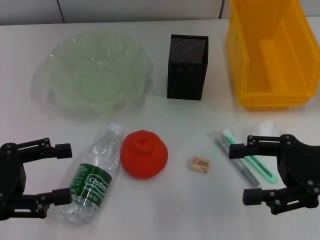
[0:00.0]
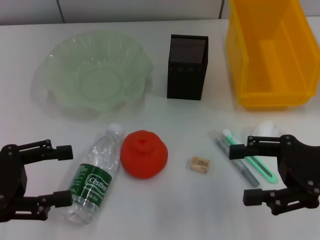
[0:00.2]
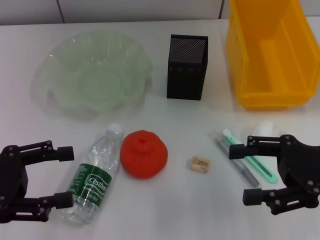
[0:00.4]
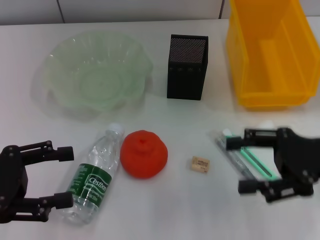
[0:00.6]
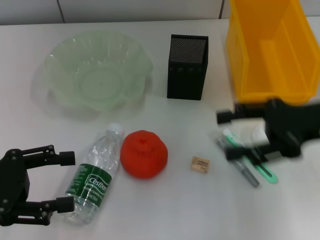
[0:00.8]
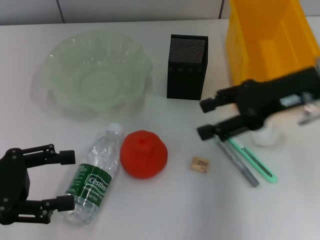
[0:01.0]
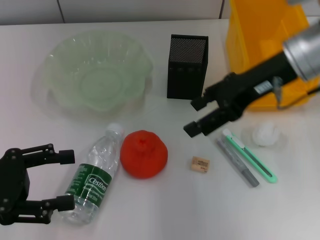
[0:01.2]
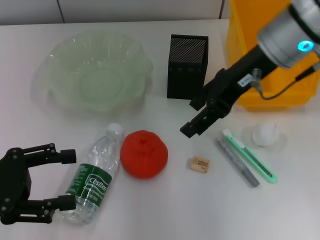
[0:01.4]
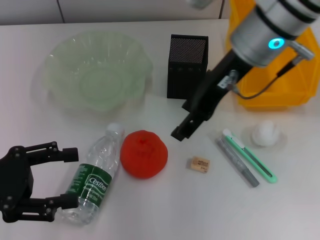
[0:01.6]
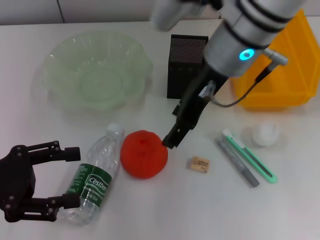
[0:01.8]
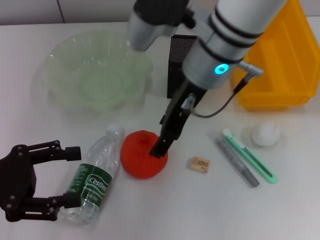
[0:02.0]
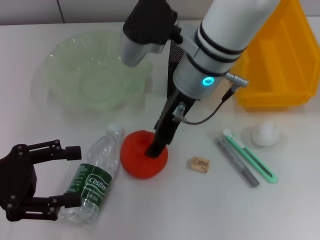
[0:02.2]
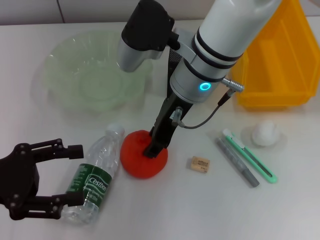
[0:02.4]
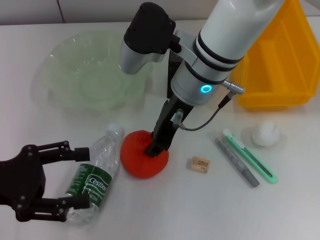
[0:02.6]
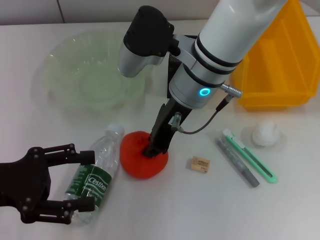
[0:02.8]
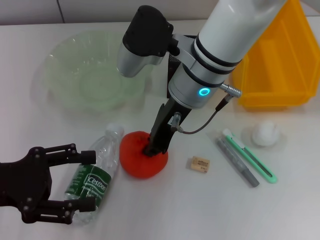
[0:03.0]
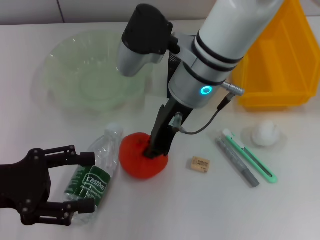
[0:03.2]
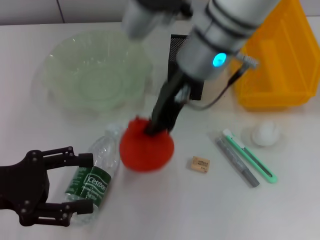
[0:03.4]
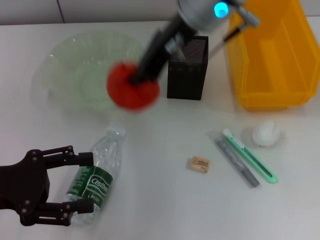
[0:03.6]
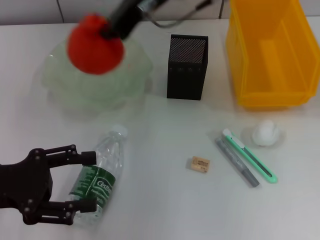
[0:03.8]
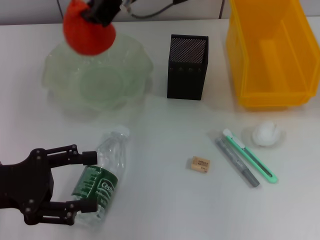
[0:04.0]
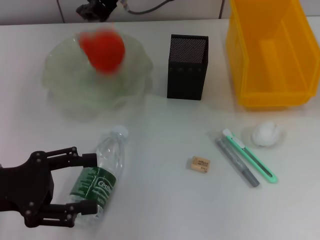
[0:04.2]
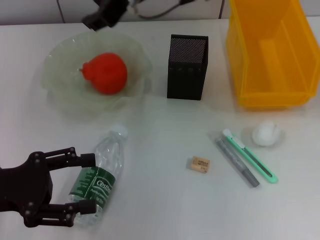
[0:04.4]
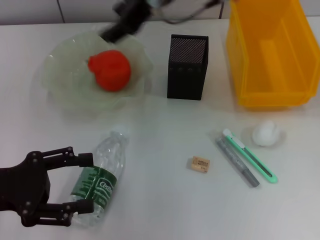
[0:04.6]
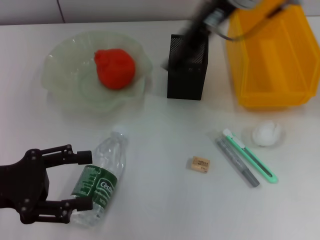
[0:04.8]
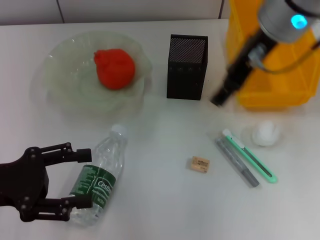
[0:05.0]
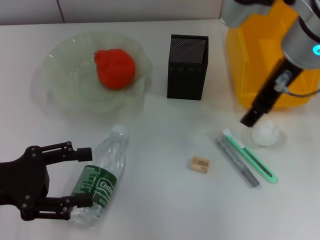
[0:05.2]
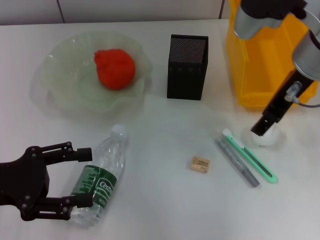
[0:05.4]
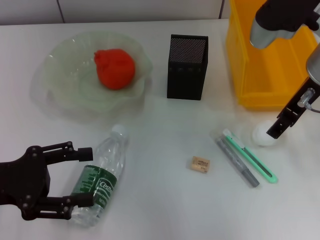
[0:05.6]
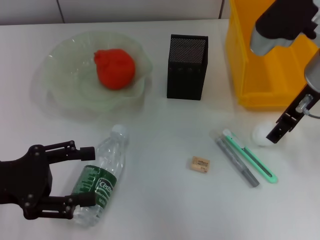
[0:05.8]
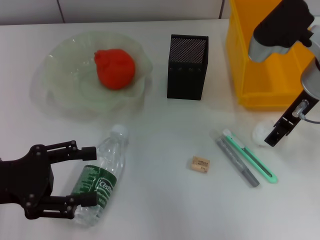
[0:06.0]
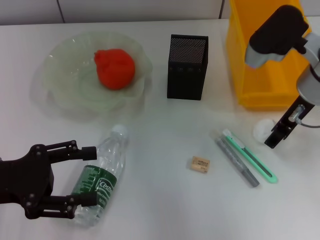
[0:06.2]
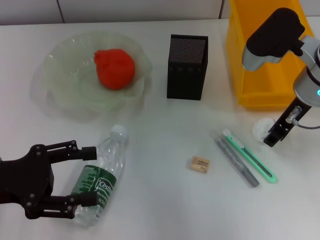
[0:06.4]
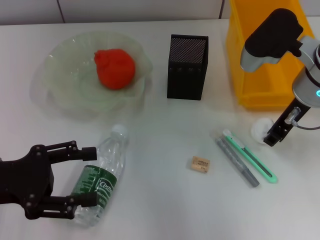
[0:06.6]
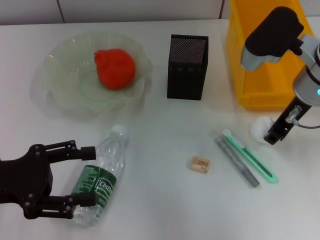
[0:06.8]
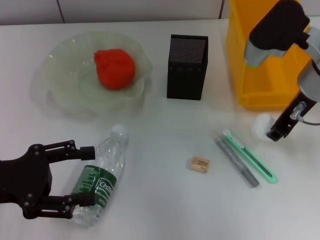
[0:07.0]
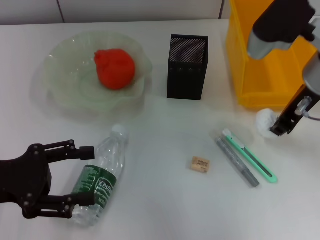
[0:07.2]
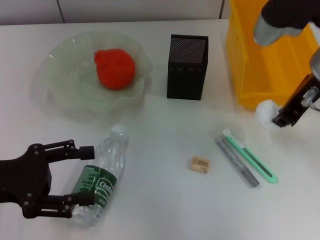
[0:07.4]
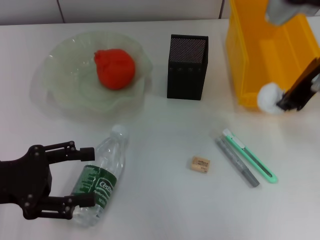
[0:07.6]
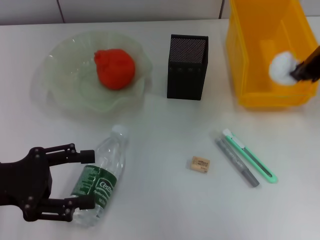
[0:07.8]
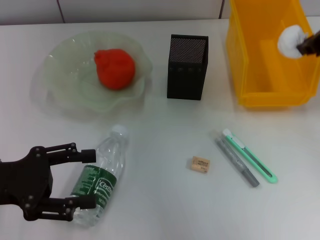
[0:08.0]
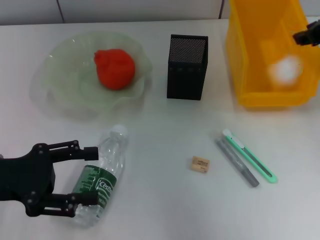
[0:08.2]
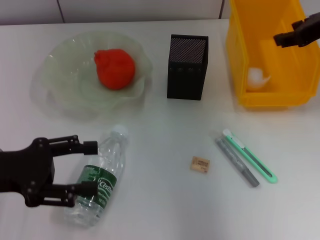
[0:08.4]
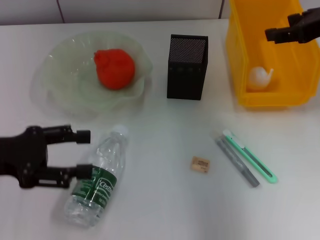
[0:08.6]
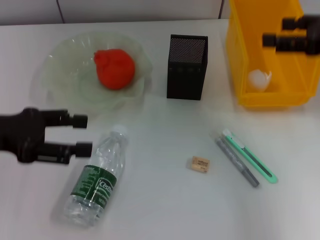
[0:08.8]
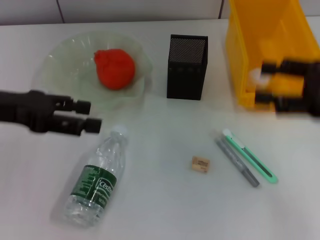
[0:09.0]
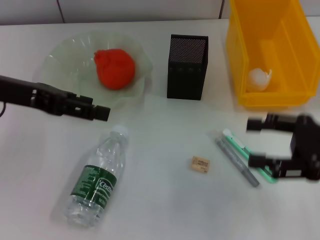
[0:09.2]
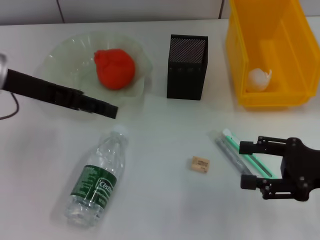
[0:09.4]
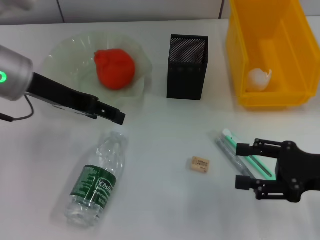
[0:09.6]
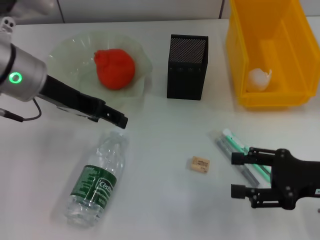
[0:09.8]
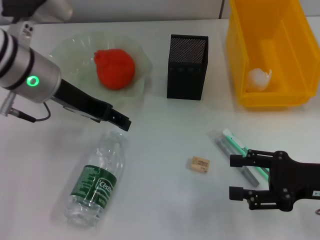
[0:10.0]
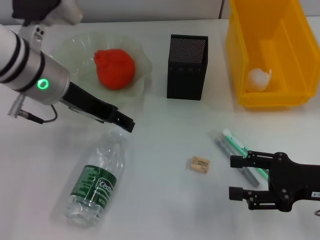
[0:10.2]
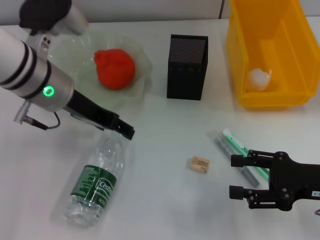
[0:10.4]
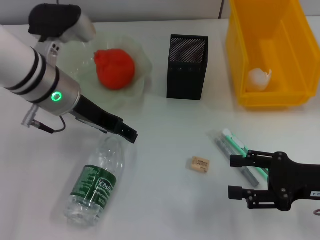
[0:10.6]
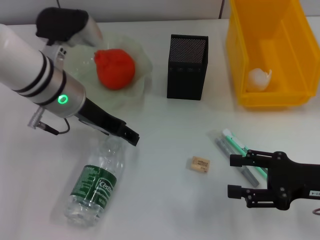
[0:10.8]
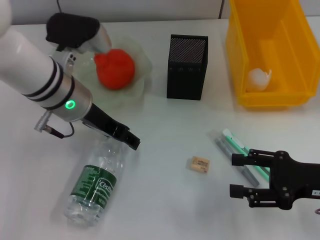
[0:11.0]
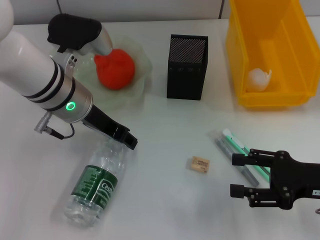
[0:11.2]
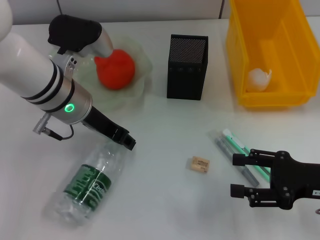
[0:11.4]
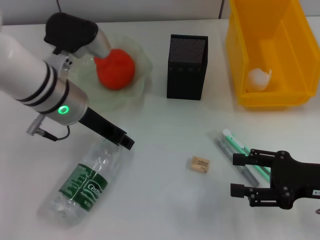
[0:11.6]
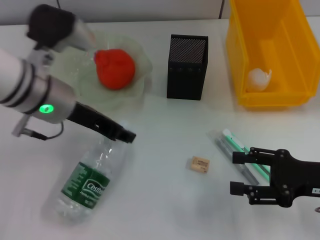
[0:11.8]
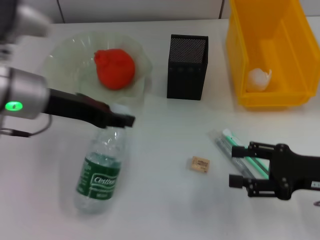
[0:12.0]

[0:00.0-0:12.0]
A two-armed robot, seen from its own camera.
Step, 0:00.0 to 0:02.8: Grab the orange with the right hand.
Step, 0:03.2 to 0:04.2: Place the orange into the fruit bowl with the right hand.
Step, 0:04.4 to 0:06.8: Grab the paper ball with the right hand.
Step, 0:07.0 to 0:08.2: Place the paper ball into the trash can with the right hand.
Step, 0:08.6 to 0:11.4: Grab the water bottle with the left hand.
0:00.0 to 0:01.6: The right gripper heads to the left, forward and upward, covering about 25 cm.
0:01.6 to 0:03.0: The right gripper goes approximately 10 cm to the left and downward, and closes up.
0:03.0 to 0:04.4: The right gripper heads upward and forward, covering about 10 cm.
0:04.4 to 0:06.0: The right gripper travels to the right and downward by roughly 20 cm, and opens.
0:06.0 to 0:07.6: The right gripper goes some 5 cm upward, and closes up.
0:07.6 to 0:09.0: The left gripper moves upward and forward, roughly 10 cm, while the right gripper moves to the right, downward and backward, roughly 15 cm, and opens up.
0:09.0 to 0:10.4: The left gripper goes approximately 15 cm to the right and forward. The right gripper travels downward and backward by about 15 cm.
0:10.4 to 0:12.0: The left gripper closes.

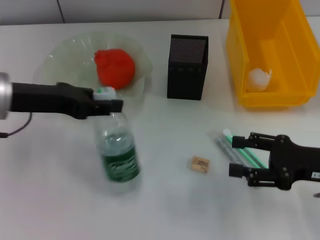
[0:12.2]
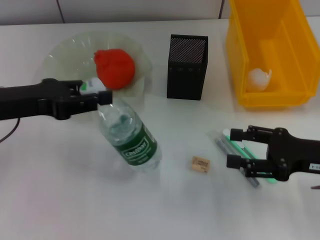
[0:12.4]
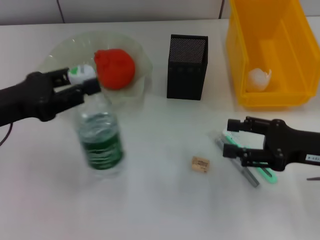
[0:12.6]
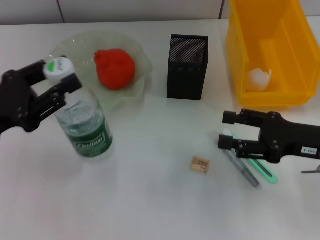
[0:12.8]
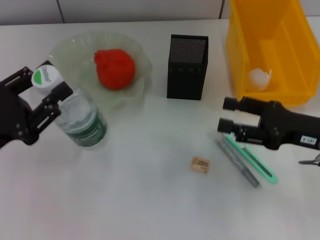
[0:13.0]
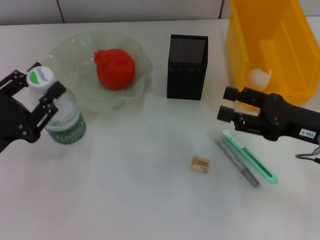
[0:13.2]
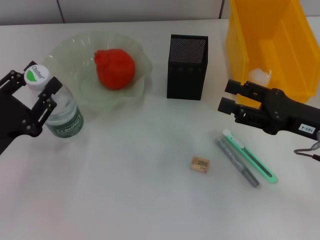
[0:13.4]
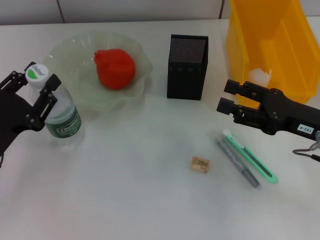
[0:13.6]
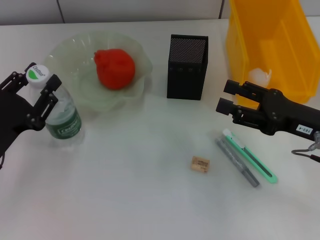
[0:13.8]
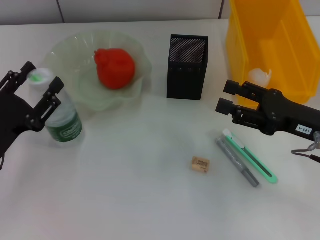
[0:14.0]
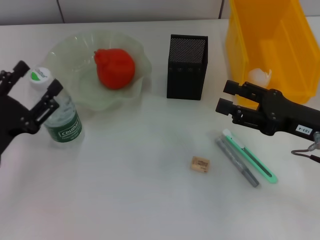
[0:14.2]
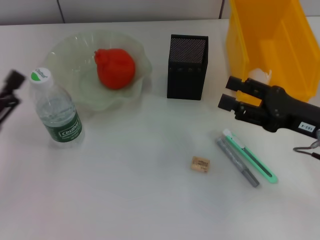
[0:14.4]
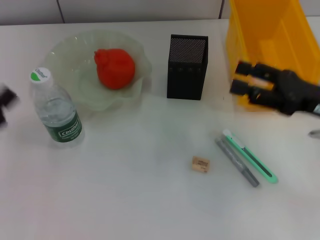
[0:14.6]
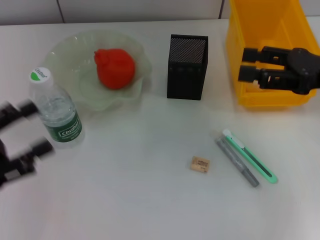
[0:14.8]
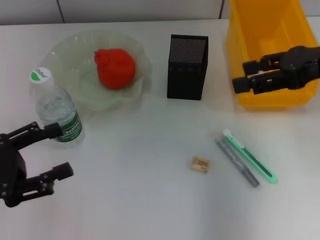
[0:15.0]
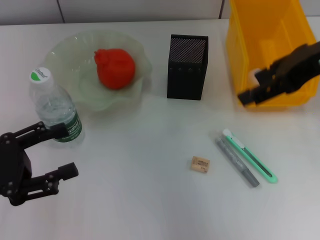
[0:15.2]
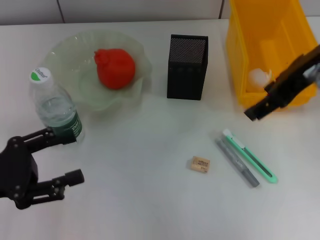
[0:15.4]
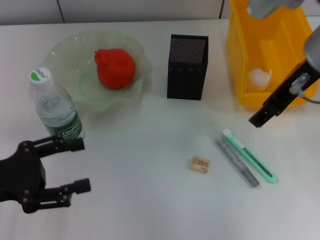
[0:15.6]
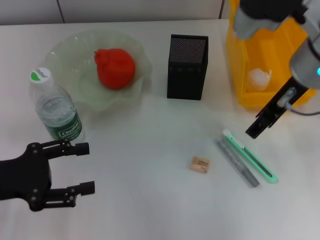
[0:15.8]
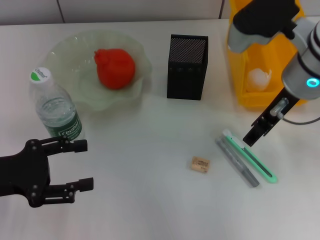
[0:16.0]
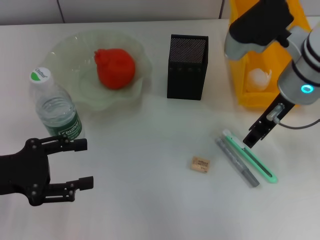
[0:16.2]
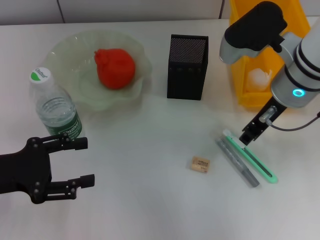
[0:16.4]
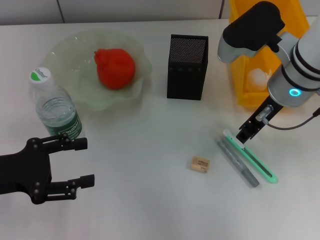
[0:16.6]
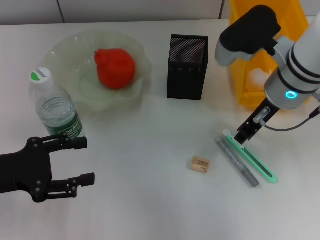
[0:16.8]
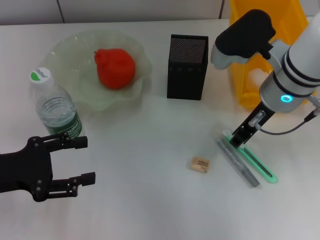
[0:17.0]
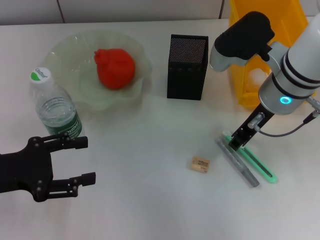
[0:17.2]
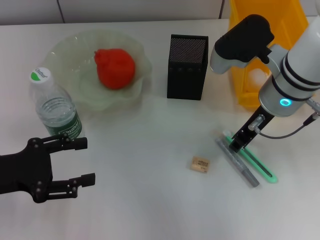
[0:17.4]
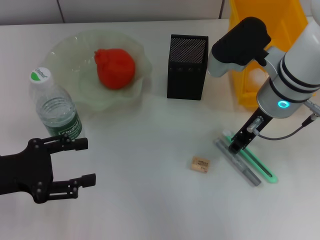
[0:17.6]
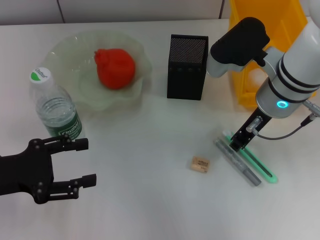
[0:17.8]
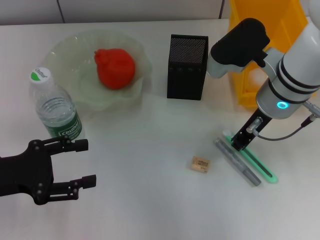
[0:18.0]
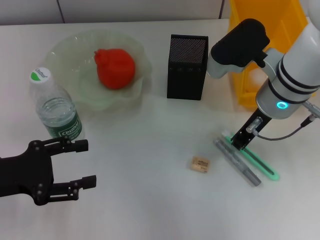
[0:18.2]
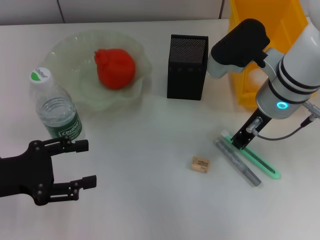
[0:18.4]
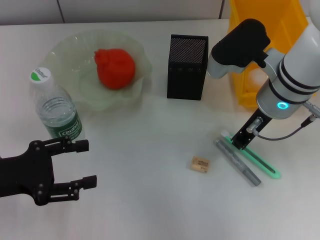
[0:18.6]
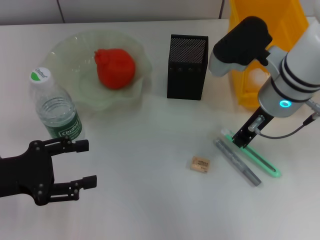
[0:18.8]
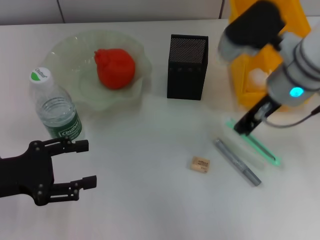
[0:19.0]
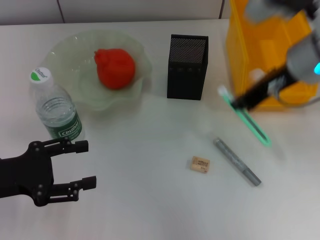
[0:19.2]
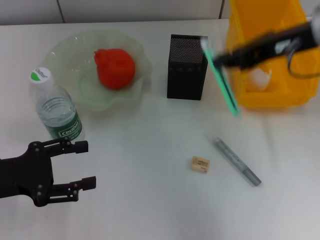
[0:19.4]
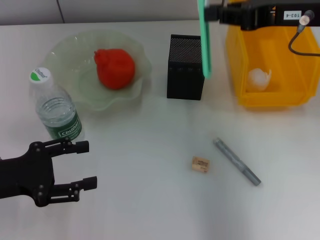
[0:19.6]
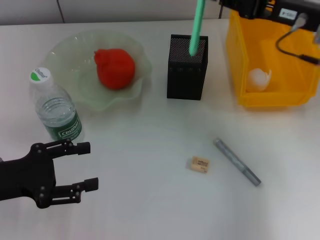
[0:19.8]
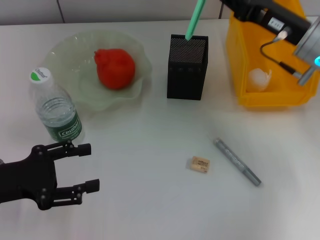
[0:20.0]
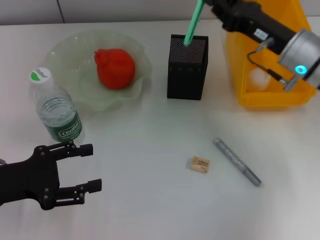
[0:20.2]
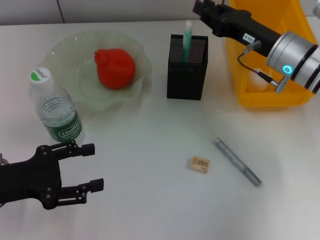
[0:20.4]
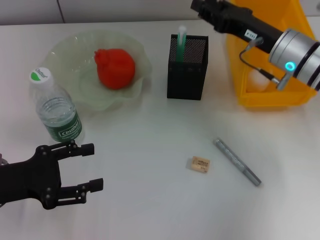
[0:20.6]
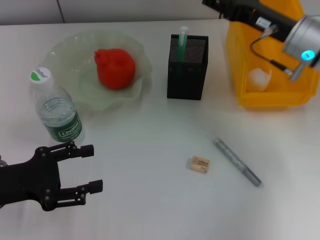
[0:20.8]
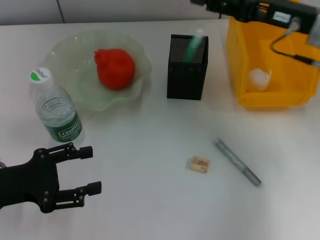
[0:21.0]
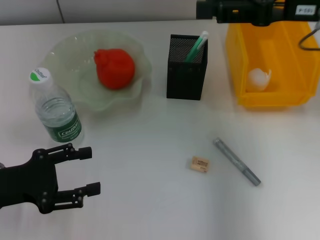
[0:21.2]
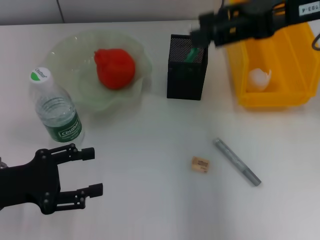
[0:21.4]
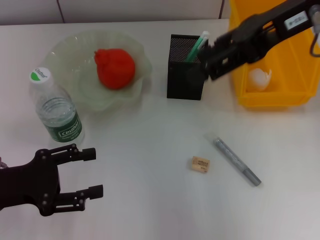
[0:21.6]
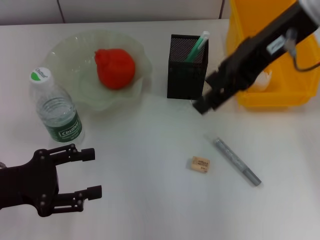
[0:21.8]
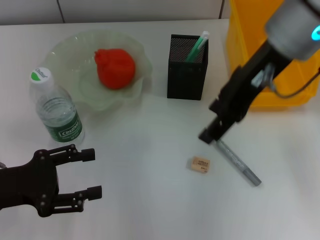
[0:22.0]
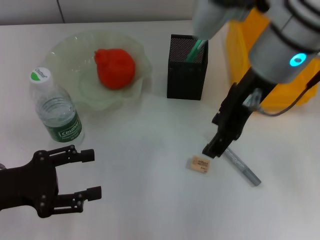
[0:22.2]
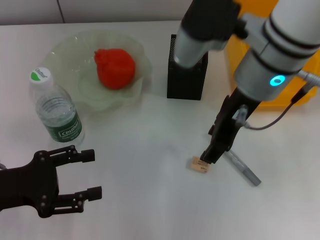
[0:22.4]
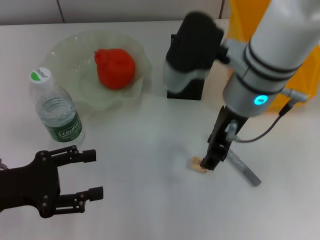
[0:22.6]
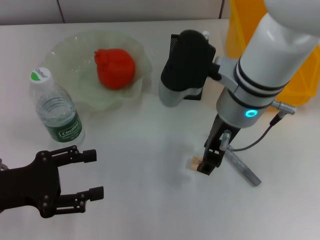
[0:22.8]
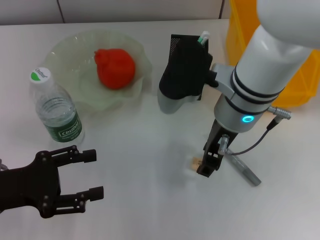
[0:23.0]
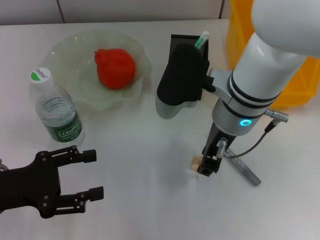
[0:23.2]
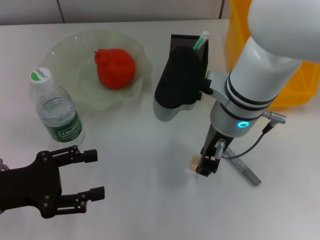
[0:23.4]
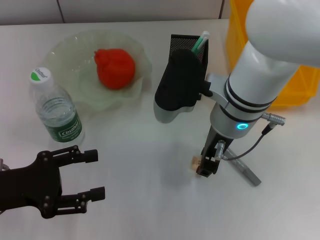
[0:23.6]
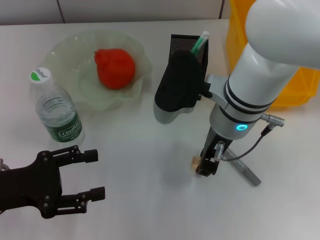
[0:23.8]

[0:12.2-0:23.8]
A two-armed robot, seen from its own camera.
Step, 0:12.2 to 0:14.0: Place the water bottle on the table with the left hand.
Step, 0:14.2 to 0:18.6: Grab the blue utility knife with the right hand.
Step, 0:18.8 to 0:21.0: Place the blue utility knife into the pen holder with the right hand.
Step, 0:21.2 to 0:23.8: Grab the eraser with the right hand.
0:12.2 to 0:13.6: The left gripper travels downward and backward by approximately 15 cm.
0:13.6 to 0:15.0: The left gripper changes place by roughly 5 cm, and opens its fingers; the right gripper moves upward, roughly 15 cm.
0:15.0 to 0:16.6: The right gripper is displaced to the left and downward by approximately 15 cm, and closes its fingers.
0:16.6 to 0:18.0: There are only small adjustments of the grippers.
0:18.0 to 0:19.4: The right gripper moves upward and to the right, about 10 cm.
0:19.4 to 0:21.0: The right gripper shifts some 5 cm downward, and opens.
0:21.0 to 0:22.4: The right gripper travels to the left by about 15 cm.
0:22.4 to 0:23.8: The right gripper travels downward by some 5 cm, and closes.
